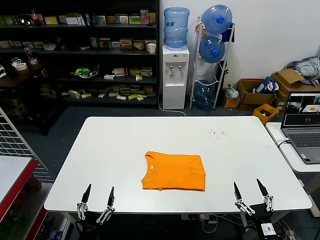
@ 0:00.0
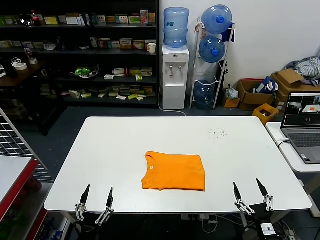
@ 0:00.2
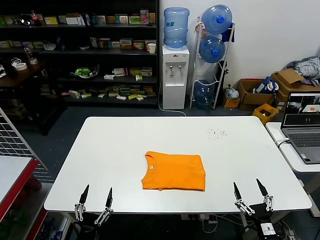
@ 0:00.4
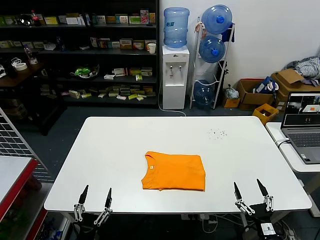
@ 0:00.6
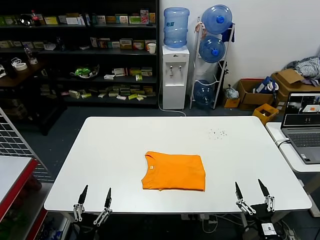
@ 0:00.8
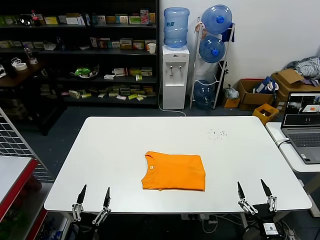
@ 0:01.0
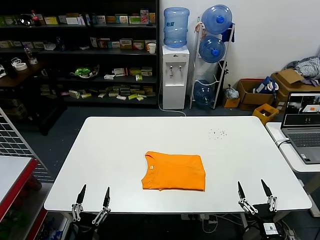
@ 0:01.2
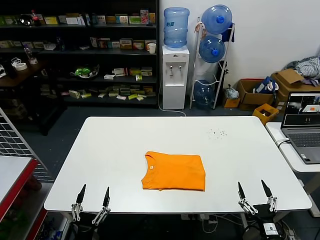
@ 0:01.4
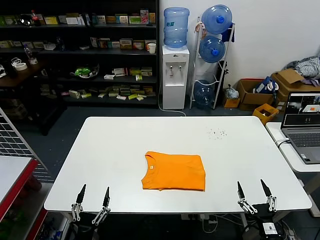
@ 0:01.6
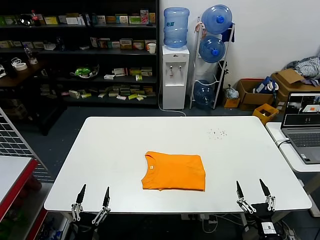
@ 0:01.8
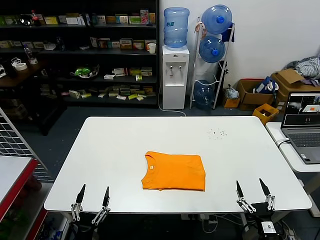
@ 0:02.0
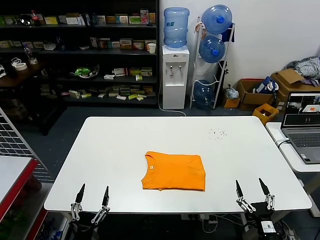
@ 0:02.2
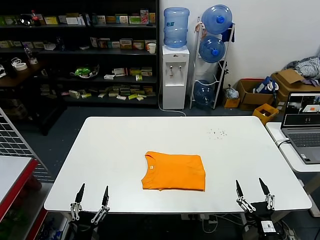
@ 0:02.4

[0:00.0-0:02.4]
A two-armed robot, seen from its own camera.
Task of the whole recording: fold and organize the clothes.
0:00.0 to 0:02.4: The two grippers keep their place.
